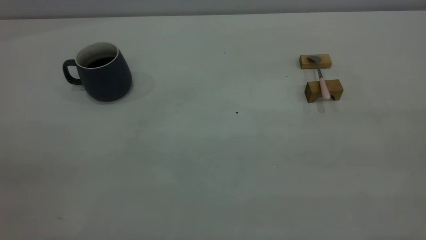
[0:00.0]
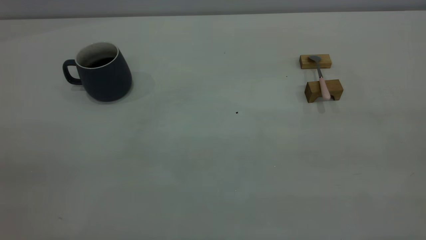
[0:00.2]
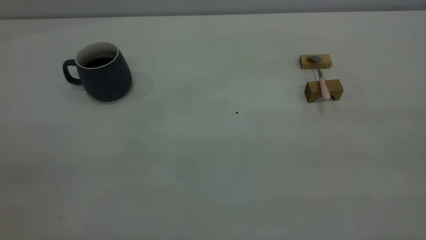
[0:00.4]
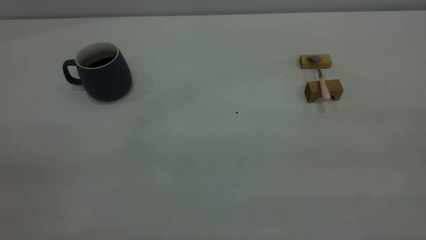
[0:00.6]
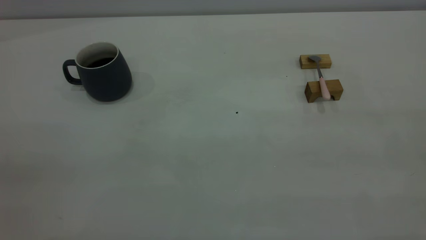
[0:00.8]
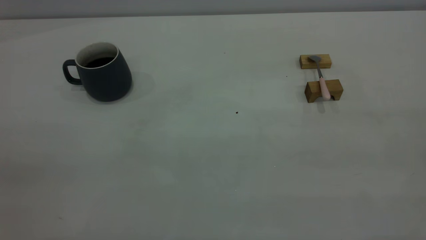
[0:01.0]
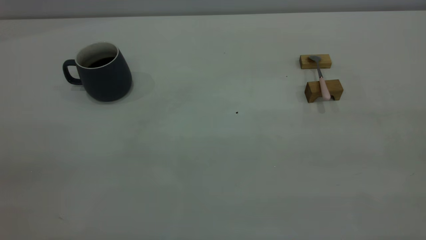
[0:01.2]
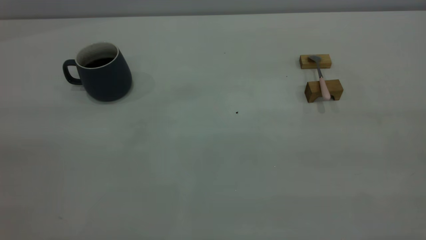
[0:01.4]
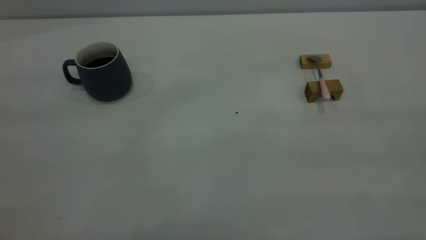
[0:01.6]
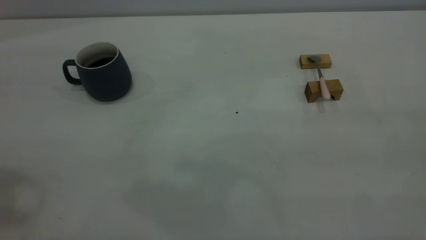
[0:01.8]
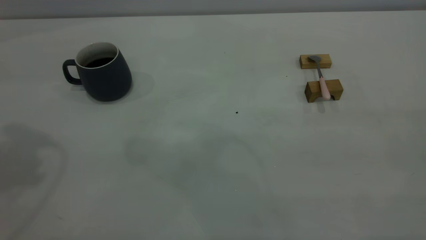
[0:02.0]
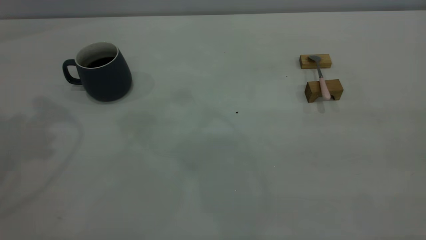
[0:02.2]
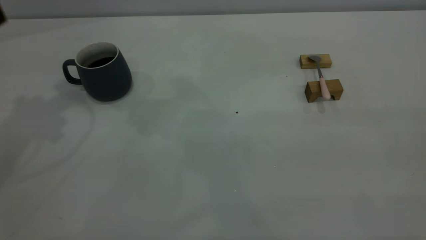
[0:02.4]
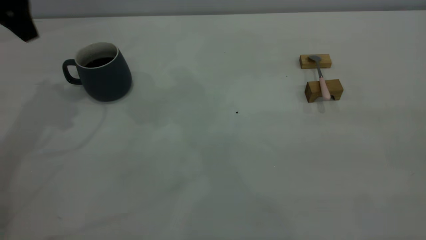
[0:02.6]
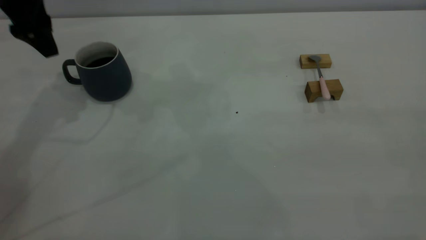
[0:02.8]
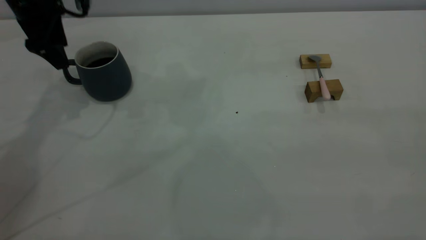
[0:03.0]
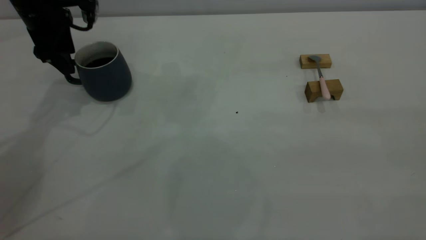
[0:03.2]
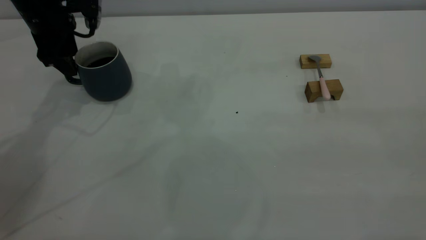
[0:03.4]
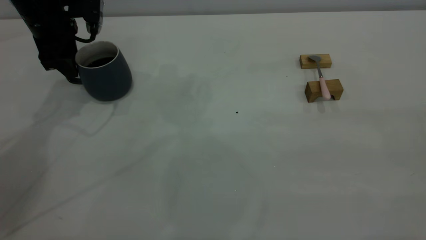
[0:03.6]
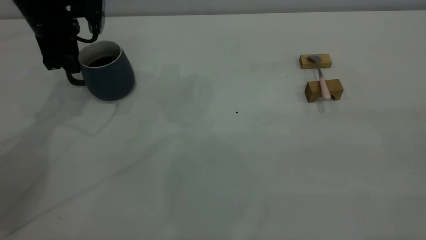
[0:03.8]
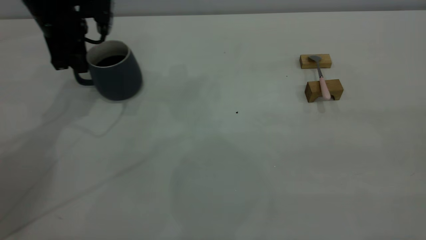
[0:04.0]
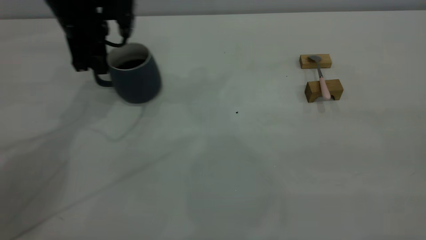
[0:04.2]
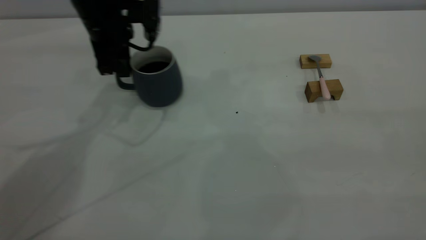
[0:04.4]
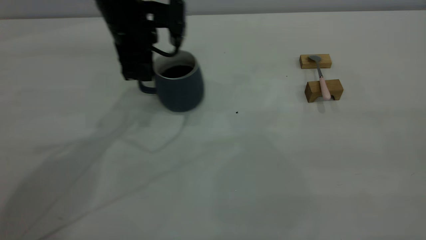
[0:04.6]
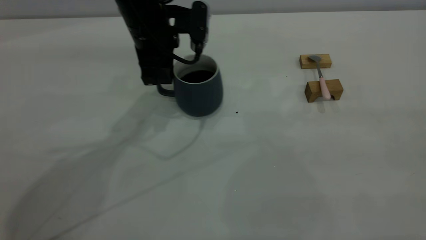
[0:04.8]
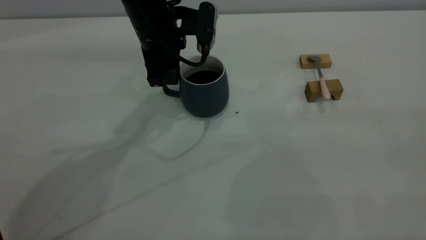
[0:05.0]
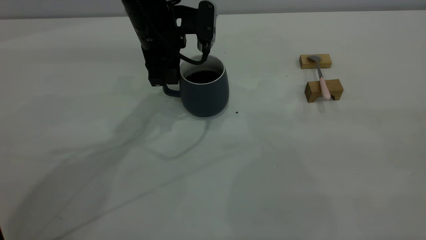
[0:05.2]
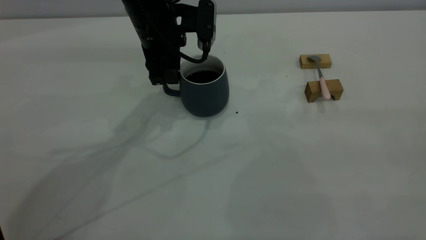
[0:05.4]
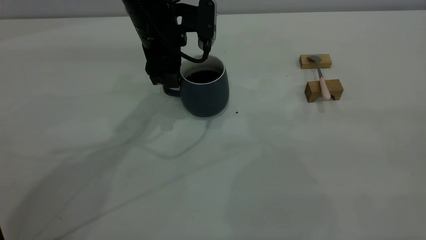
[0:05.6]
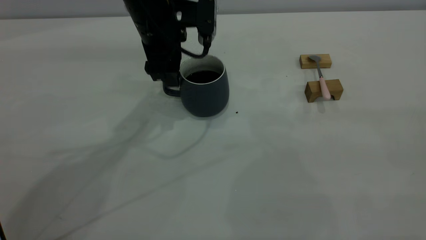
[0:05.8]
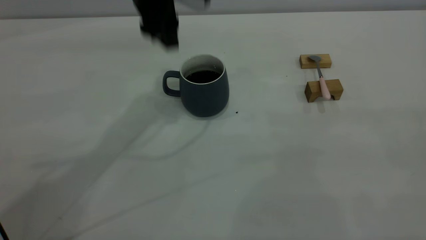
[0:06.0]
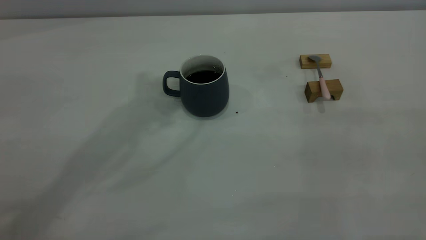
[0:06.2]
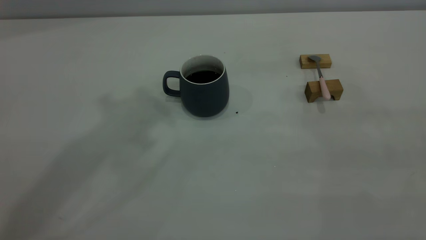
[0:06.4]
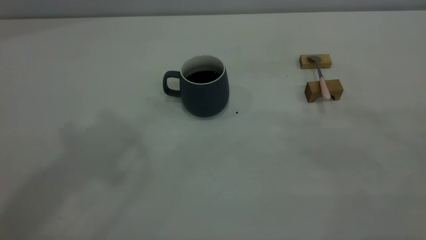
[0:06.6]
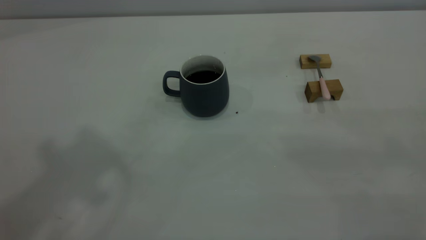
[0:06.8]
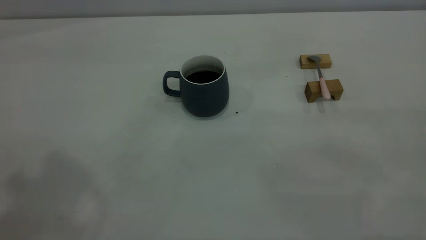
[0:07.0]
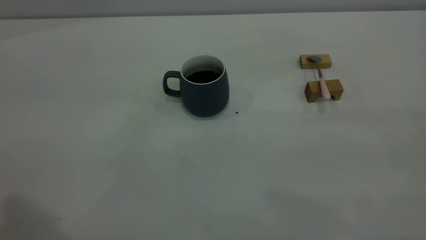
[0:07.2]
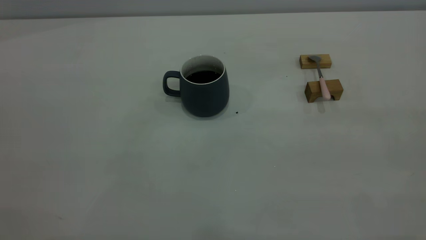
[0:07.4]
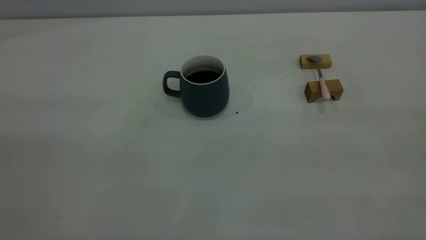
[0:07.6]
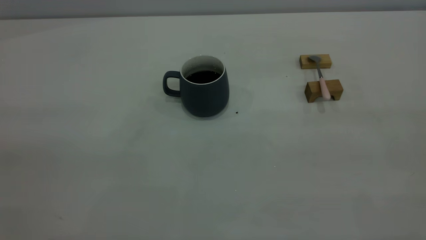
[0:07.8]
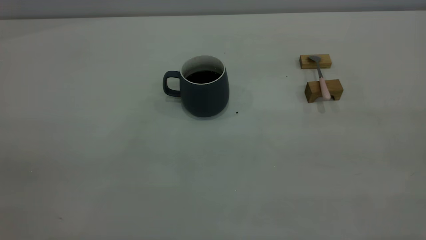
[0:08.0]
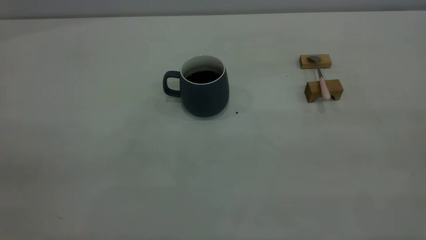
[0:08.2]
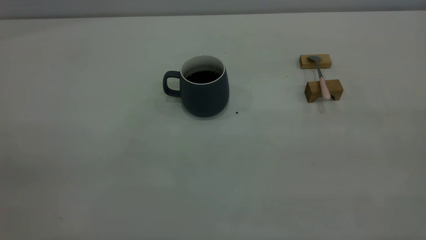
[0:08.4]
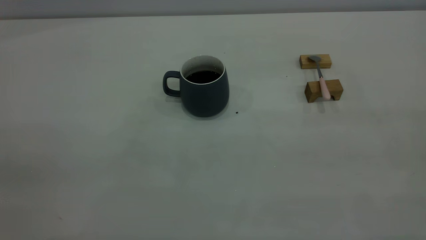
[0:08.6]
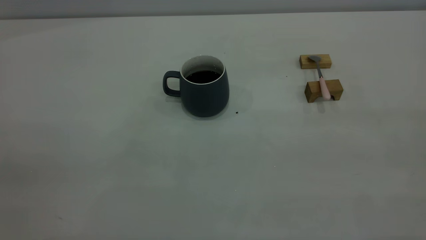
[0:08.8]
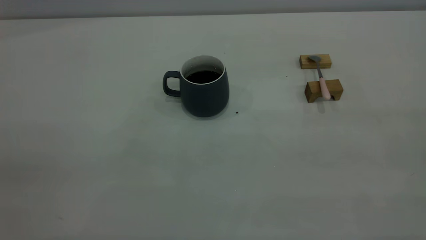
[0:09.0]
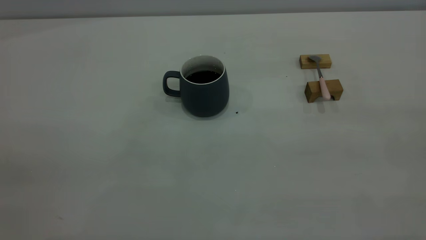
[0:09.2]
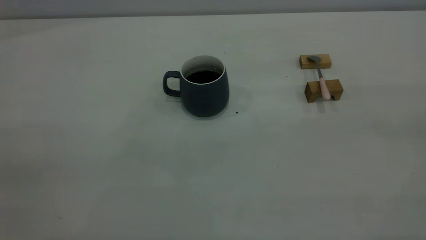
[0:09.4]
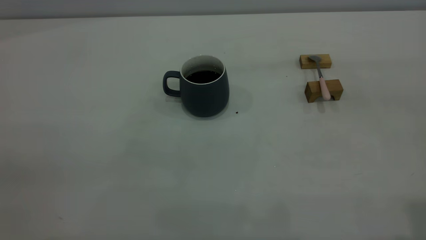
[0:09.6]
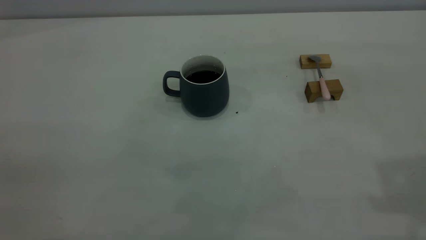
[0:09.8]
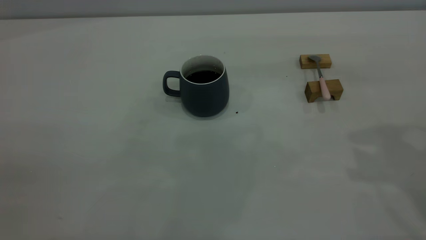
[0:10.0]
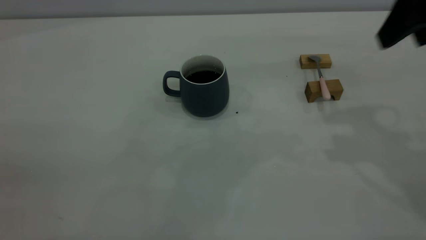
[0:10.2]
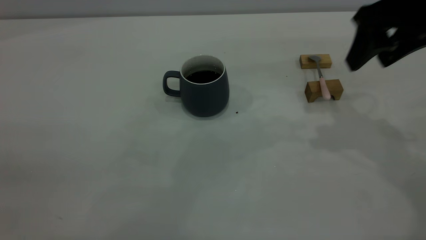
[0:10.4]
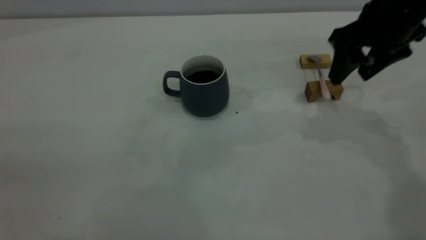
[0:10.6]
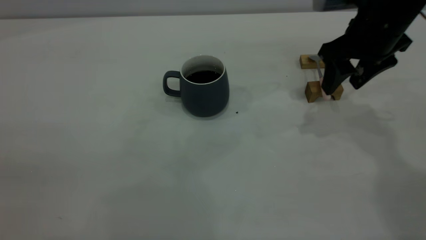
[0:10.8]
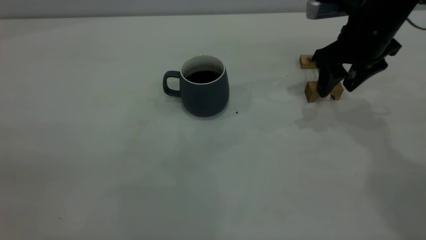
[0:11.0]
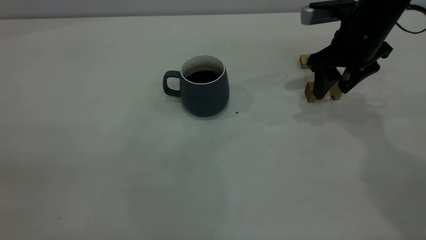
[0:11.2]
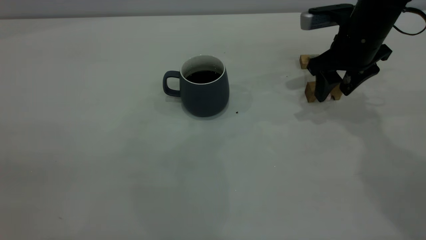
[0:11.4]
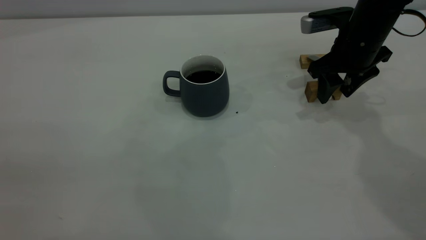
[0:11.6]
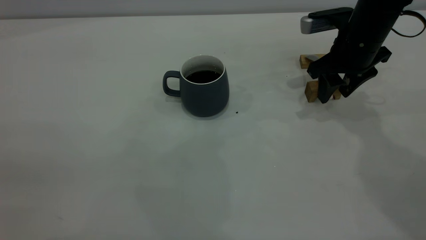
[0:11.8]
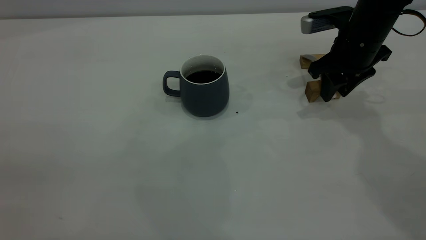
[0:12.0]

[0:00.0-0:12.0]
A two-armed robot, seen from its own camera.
Step, 0:00.0 to 0:05.8: Move the cup with coffee to the center of view.
0:01.6 to 0:03.0: The left gripper shifts about 40 cm forward and downward, and opens up.
0:03.0 to 0:04.4: The left gripper travels to the right by about 10 cm, and closes.
0:04.4 to 0:06.0: The left gripper shifts approximately 15 cm upward and to the right, and opens up.
0:06.0 to 0:07.6: The left gripper goes roughly 40 cm backward and to the left, and closes its fingers.
0:09.0 to 0:10.4: The right gripper goes some 35 cm forward and downward, and opens its fingers.
0:10.4 to 0:12.0: The right gripper heads downward and forward, covering about 15 cm, and closes.

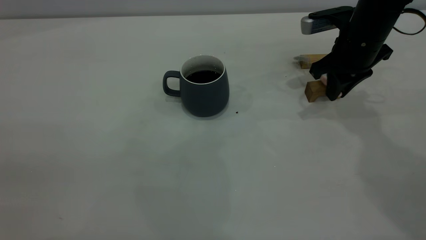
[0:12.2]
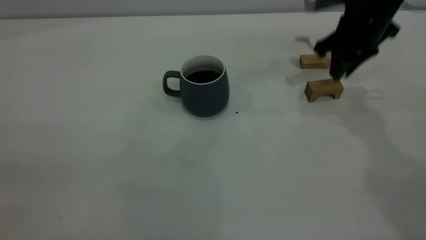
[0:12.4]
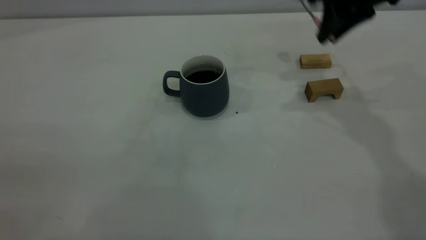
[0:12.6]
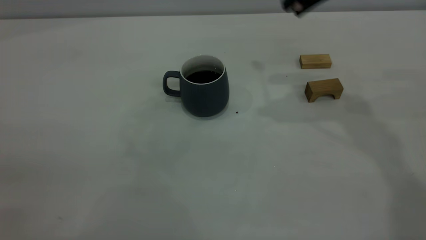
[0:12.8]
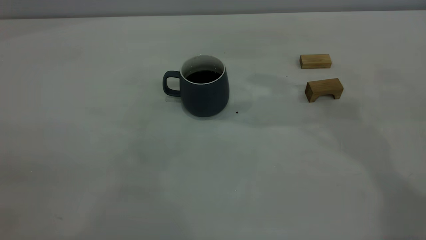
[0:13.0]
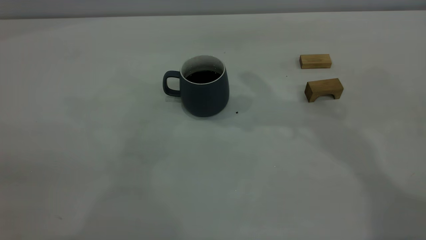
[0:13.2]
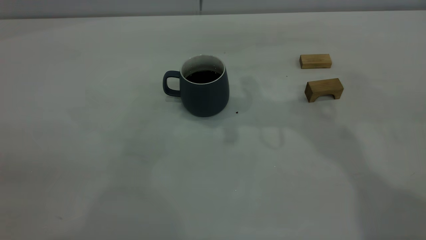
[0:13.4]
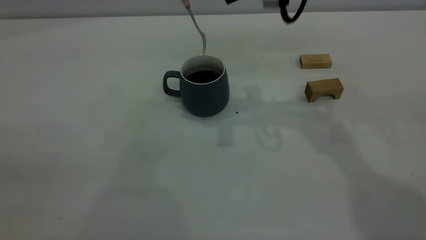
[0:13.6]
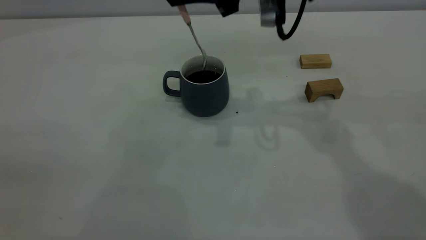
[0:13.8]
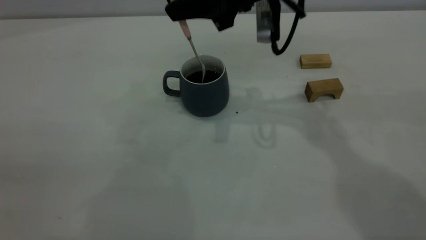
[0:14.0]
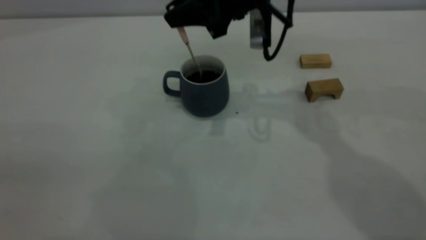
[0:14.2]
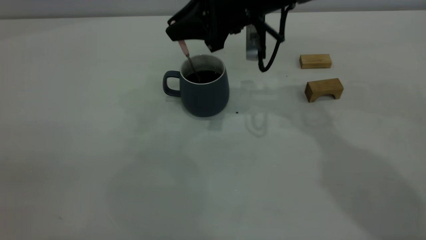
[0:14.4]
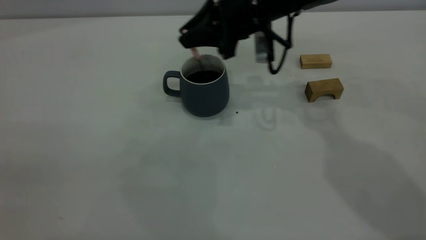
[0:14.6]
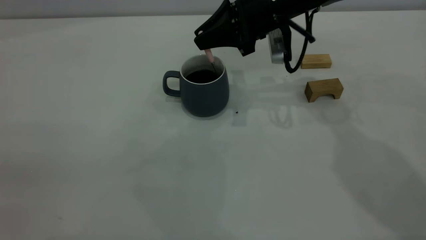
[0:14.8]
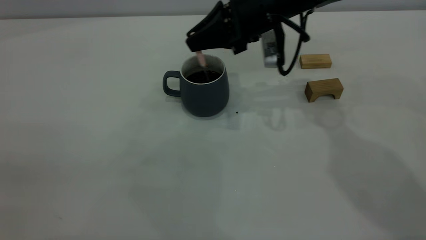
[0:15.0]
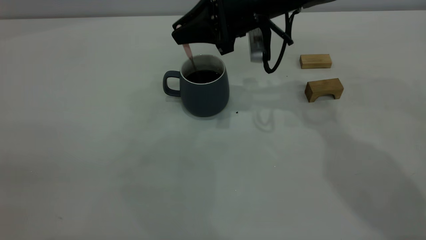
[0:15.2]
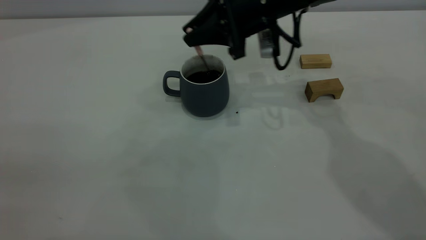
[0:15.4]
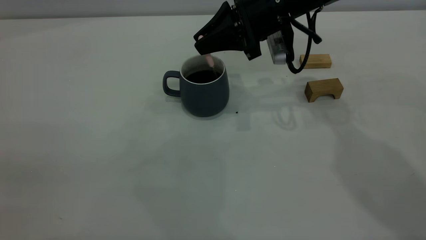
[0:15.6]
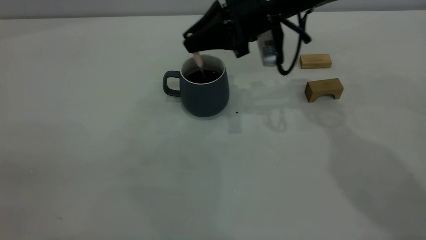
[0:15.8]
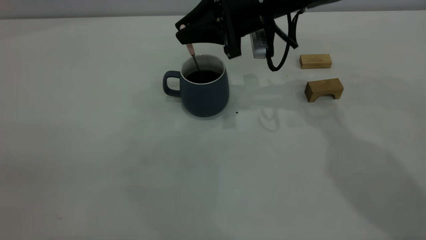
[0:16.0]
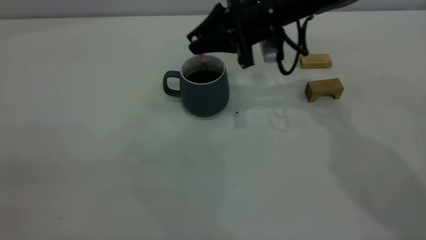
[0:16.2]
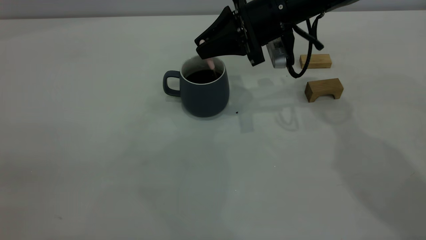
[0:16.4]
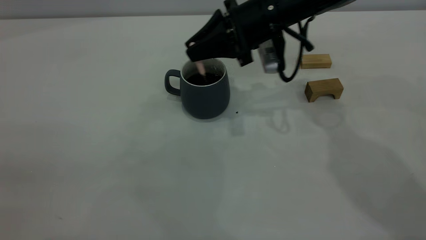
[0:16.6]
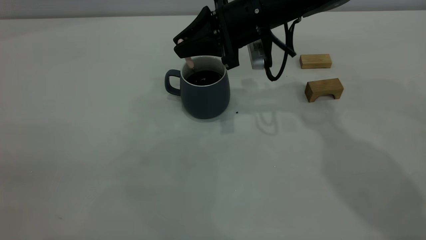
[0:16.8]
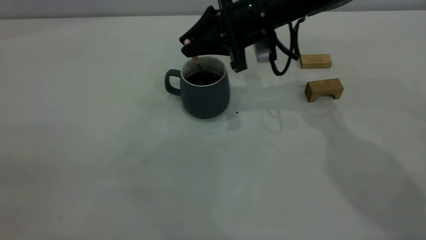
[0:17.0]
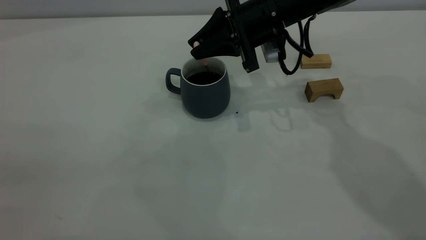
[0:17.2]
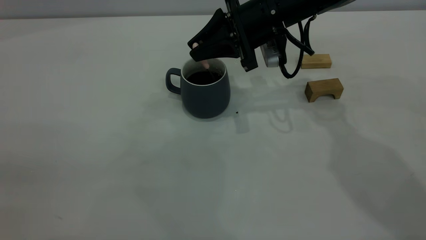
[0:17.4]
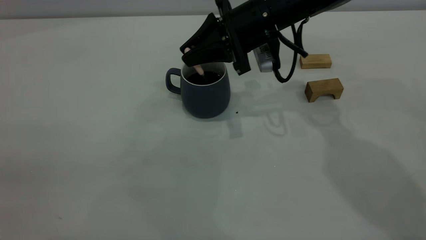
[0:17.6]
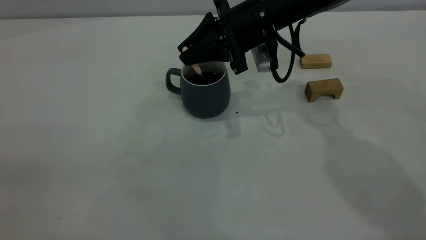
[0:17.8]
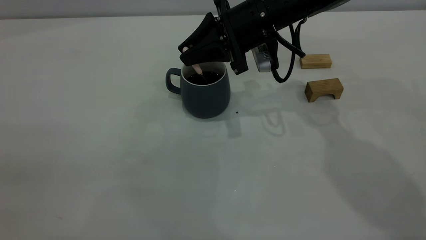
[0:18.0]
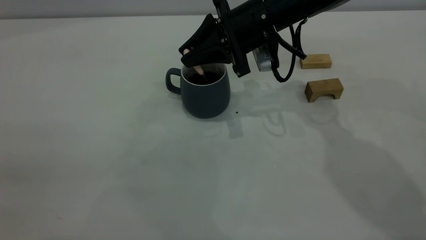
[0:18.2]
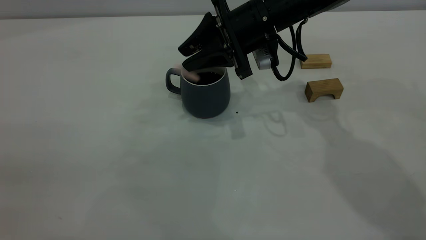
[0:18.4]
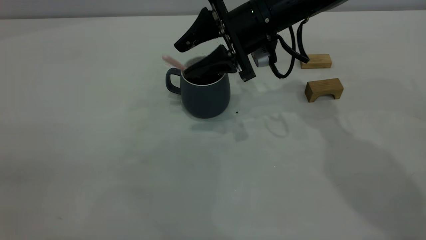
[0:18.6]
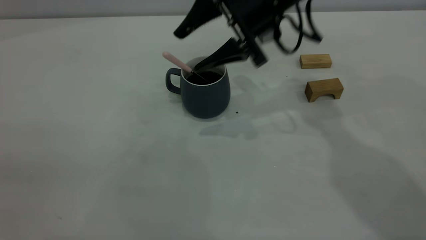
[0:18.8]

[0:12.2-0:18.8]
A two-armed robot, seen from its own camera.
0:12.2 to 0:13.8: The right gripper shifts about 20 cm to the left and upward.
0:13.8 to 0:15.4: The right gripper heads downward, covering some 10 cm.
0:15.4 to 0:17.2: The grippers stay close to where they were, moving slightly.
0:17.2 to 0:18.8: The right gripper goes about 5 cm upward, and opens up.
